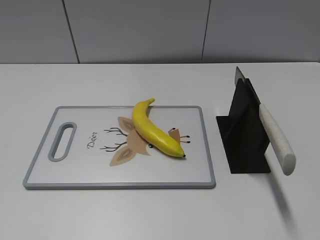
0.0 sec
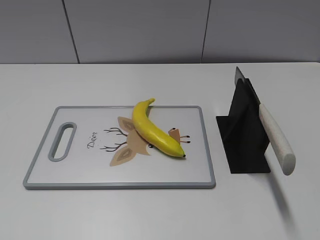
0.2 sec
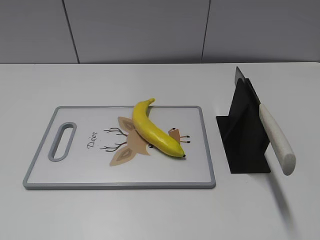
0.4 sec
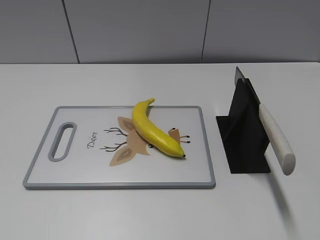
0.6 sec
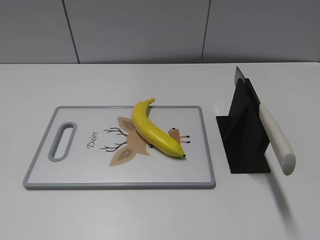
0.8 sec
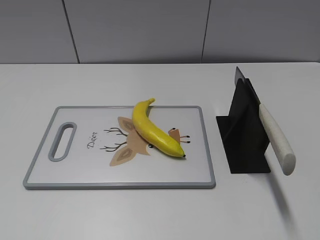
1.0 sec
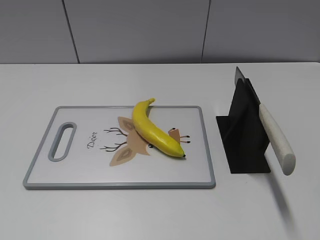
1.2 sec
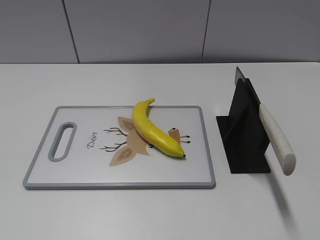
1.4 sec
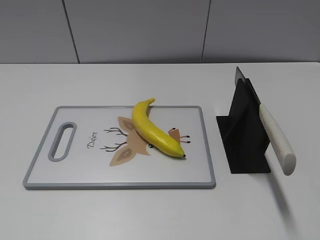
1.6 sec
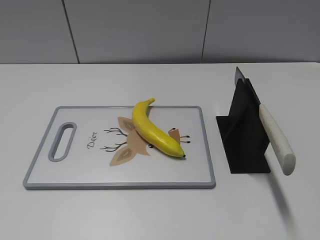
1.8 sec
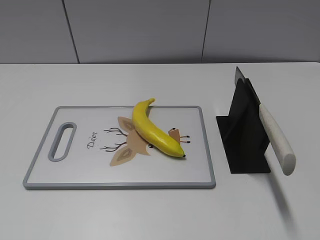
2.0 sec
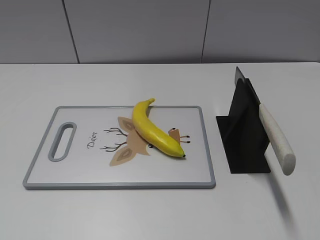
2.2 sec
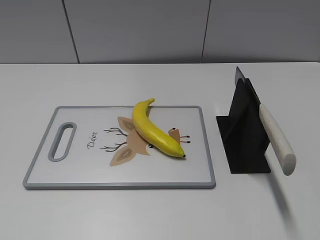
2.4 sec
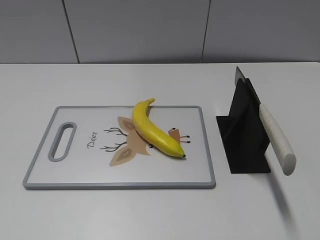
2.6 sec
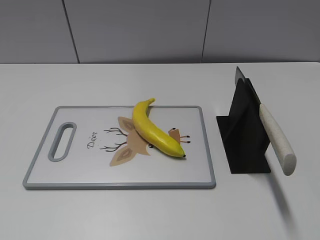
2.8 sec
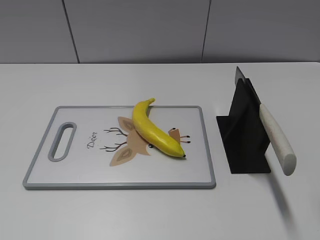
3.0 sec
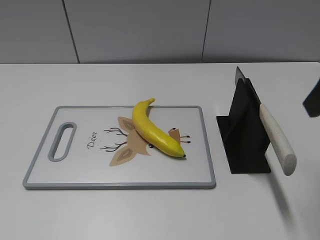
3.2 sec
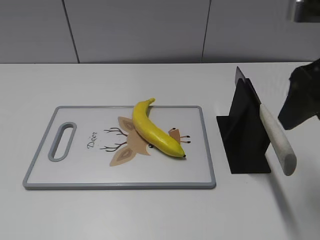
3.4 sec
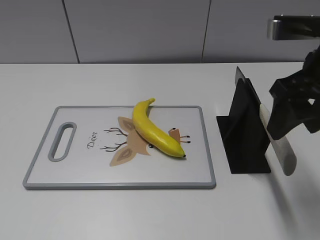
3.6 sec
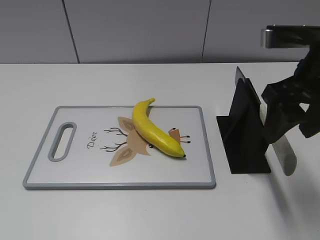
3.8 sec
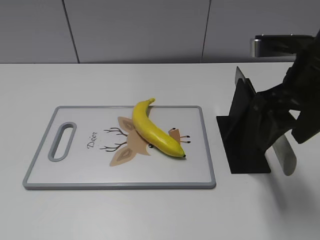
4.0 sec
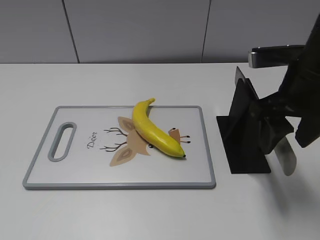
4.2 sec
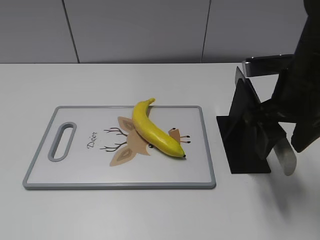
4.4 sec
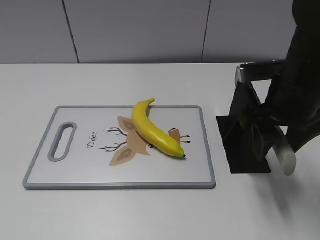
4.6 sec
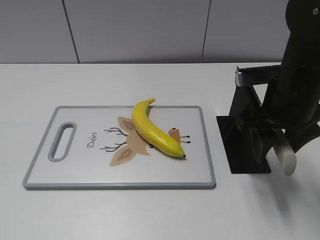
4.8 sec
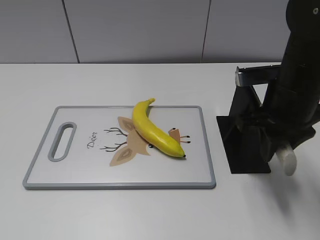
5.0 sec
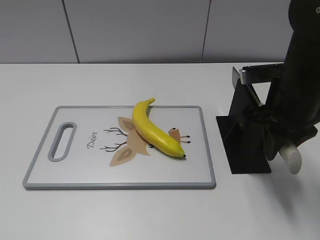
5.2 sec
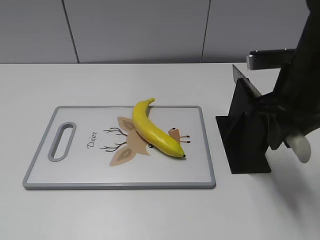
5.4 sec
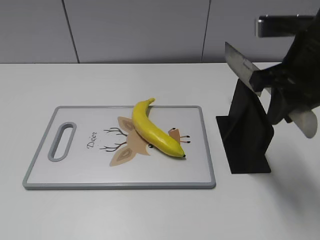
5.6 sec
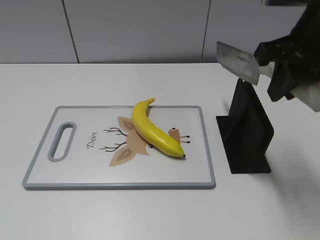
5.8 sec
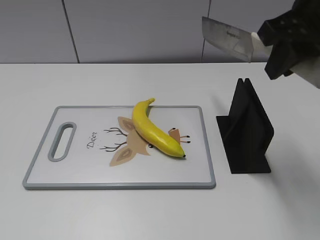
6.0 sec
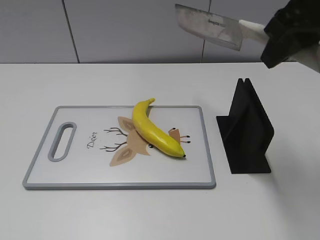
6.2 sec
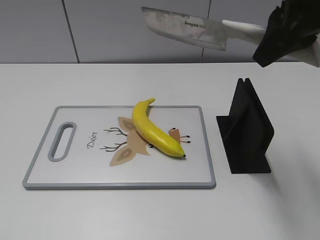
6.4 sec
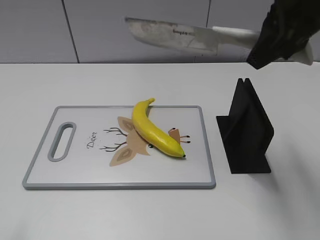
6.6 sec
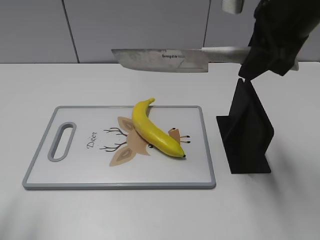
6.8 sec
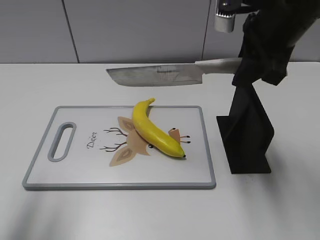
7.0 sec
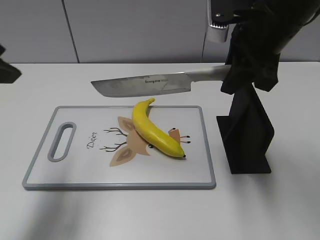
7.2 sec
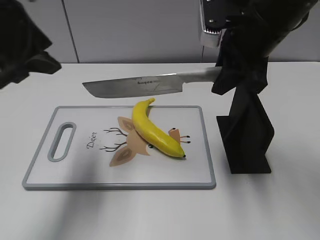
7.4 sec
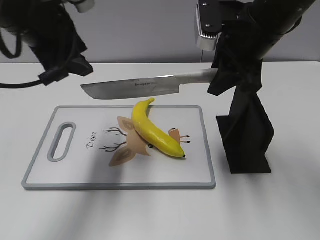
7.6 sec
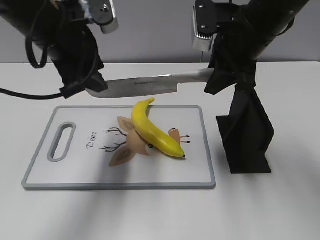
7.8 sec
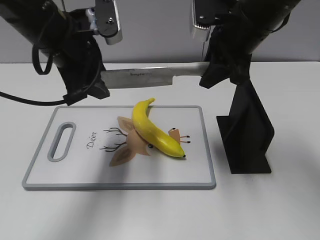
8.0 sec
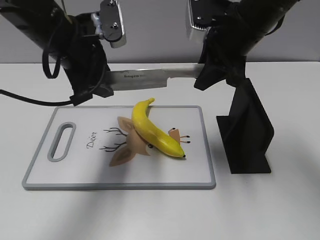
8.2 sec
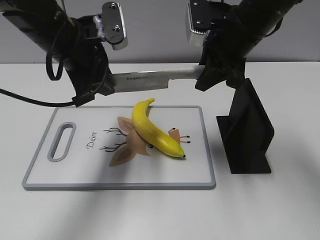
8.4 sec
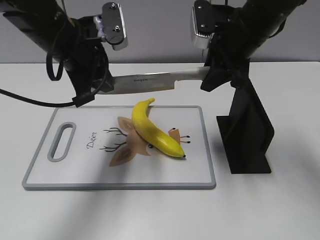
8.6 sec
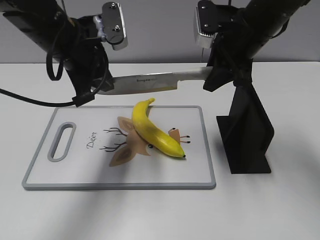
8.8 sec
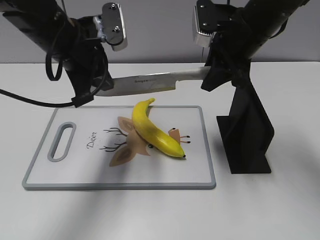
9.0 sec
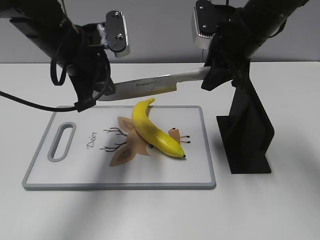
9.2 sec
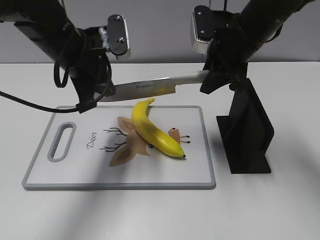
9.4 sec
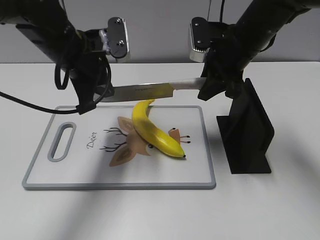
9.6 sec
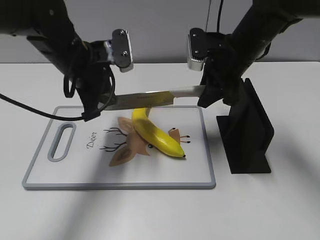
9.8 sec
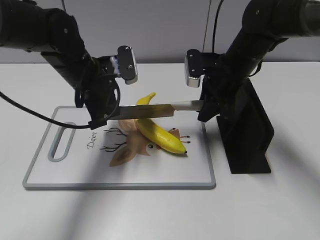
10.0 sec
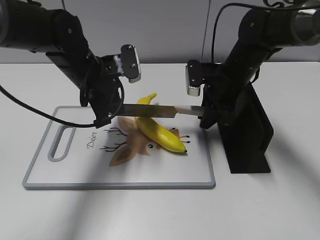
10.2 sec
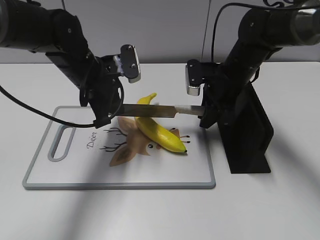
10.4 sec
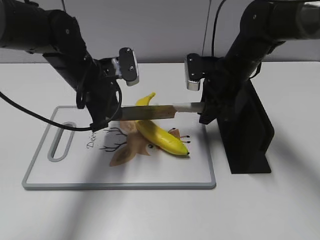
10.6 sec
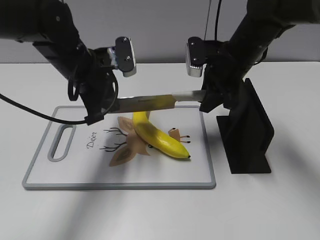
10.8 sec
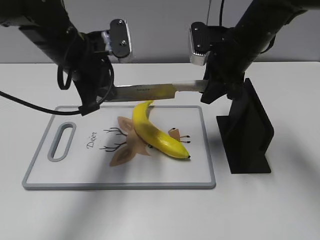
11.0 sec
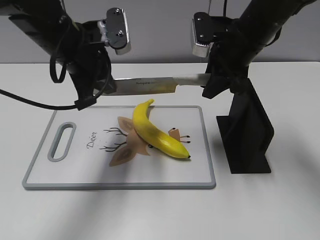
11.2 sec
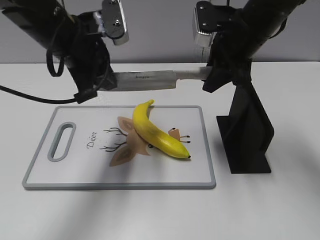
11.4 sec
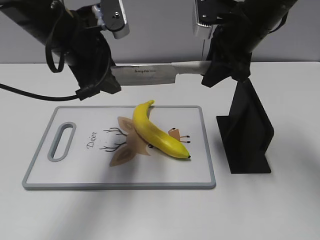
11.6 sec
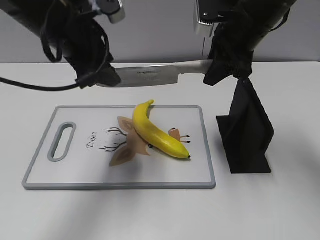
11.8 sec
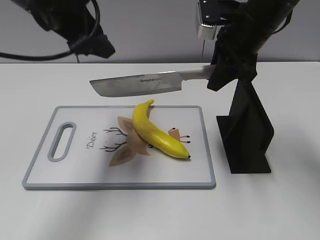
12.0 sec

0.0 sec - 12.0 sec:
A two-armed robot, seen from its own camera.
Task of the whole recording: cut plastic banana.
Step, 0.0 sec - 6.2 sec: Grab the knife handle with your right hand.
Step, 6.6 sec - 11.2 sec: Lift the knife with your right hand.
3.0 sec - 4.4 sec: The right gripper shifts approximately 15 cm downward, forward and to the left.
4.4 sec - 6.0 sec: The right gripper travels upward by about 10 cm, and closes.
6.0 sec - 7.6 sec: The left gripper moves forward and to the right, roughly 35 cm, while the right gripper travels downward and forward by roughly 10 cm.
7.6 sec - 9.0 sec: The left gripper heads downward, covering approximately 5 cm, and closes its fingers.
9.0 sec - 10.4 sec: The two grippers go approximately 10 cm downward.
10.4 sec - 12.0 sec: The grippers both shift upward by roughly 15 cm. The left gripper opens its fingers.

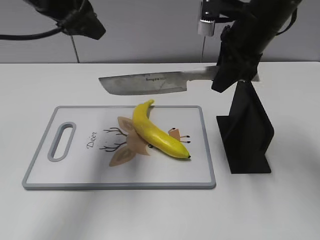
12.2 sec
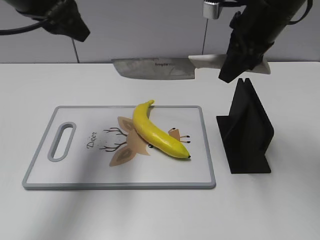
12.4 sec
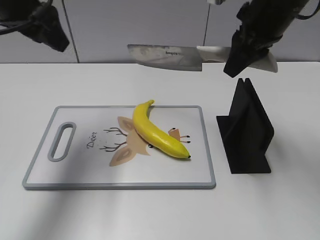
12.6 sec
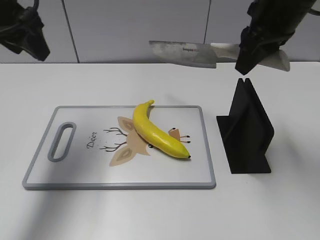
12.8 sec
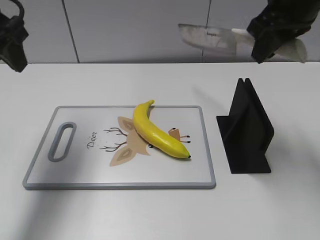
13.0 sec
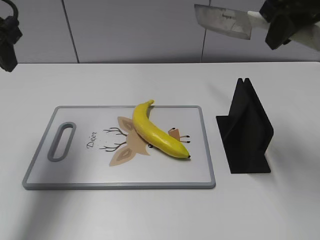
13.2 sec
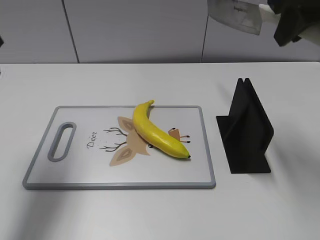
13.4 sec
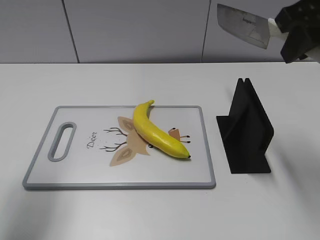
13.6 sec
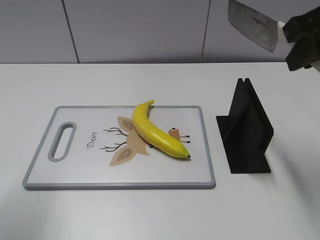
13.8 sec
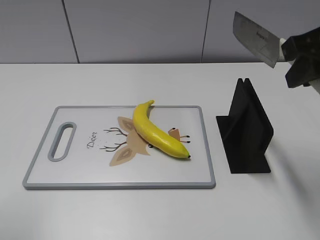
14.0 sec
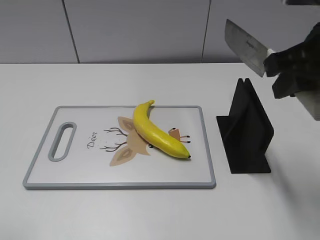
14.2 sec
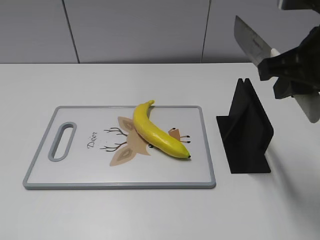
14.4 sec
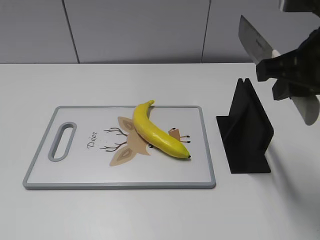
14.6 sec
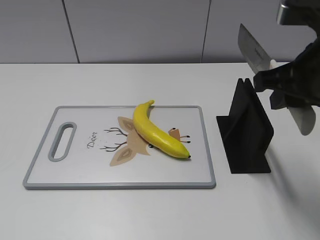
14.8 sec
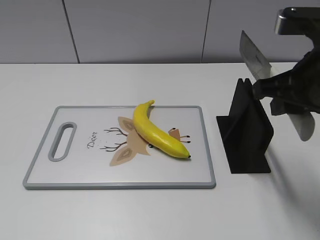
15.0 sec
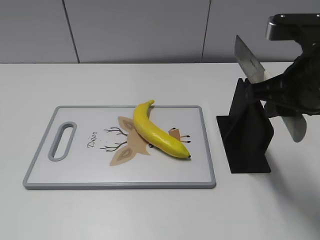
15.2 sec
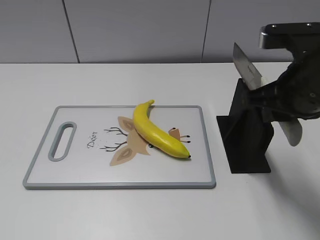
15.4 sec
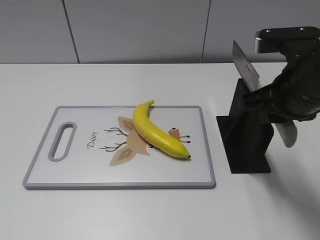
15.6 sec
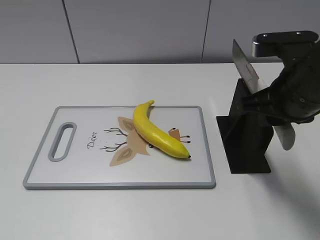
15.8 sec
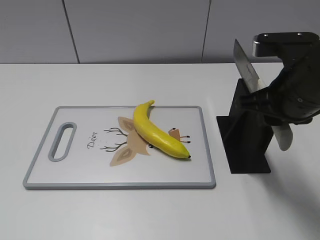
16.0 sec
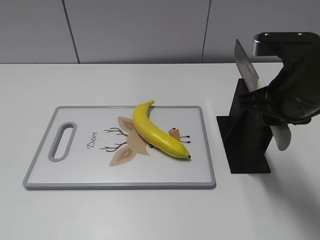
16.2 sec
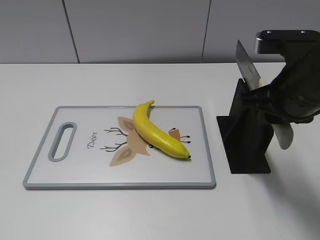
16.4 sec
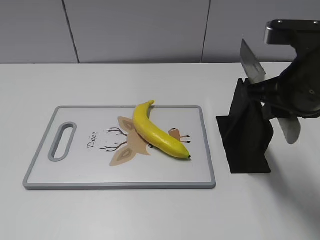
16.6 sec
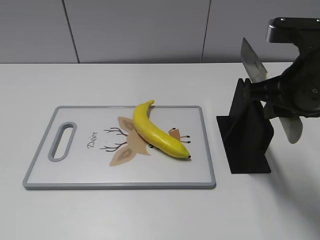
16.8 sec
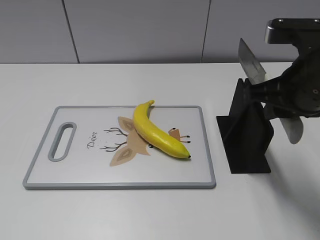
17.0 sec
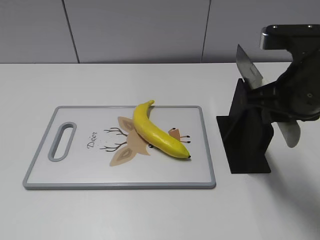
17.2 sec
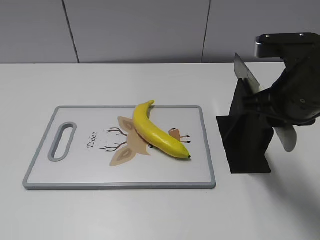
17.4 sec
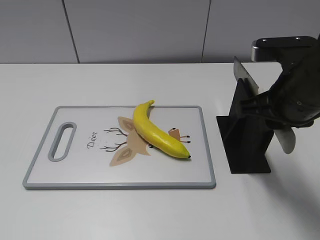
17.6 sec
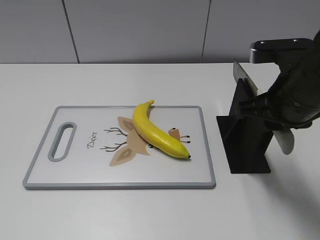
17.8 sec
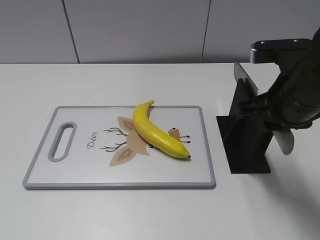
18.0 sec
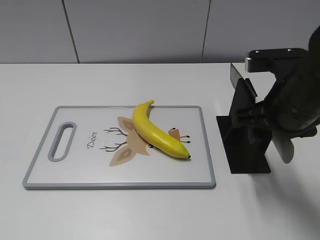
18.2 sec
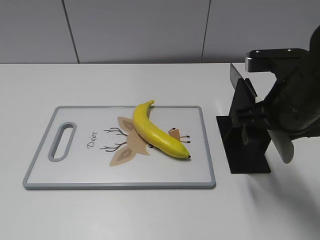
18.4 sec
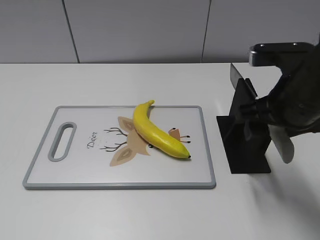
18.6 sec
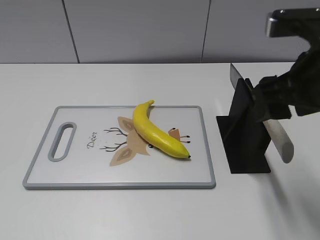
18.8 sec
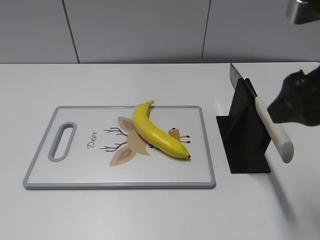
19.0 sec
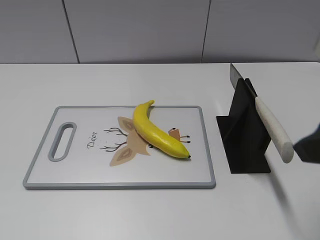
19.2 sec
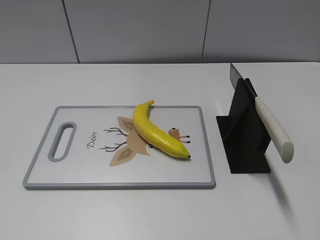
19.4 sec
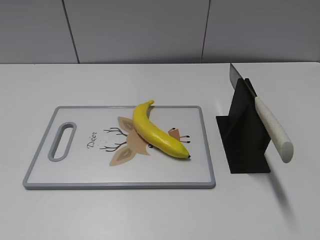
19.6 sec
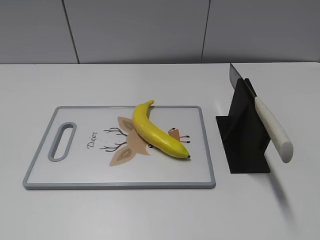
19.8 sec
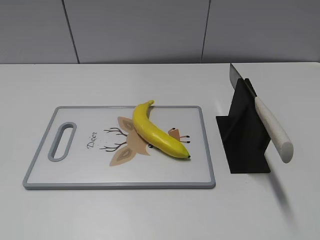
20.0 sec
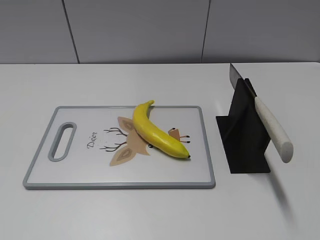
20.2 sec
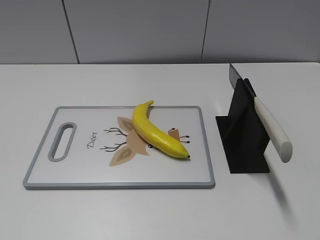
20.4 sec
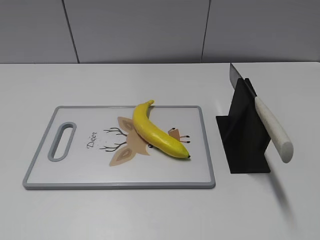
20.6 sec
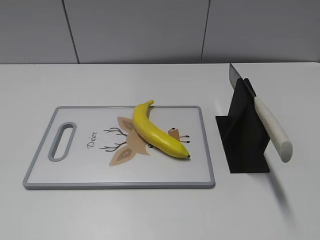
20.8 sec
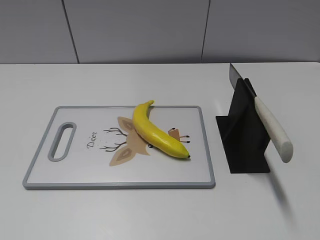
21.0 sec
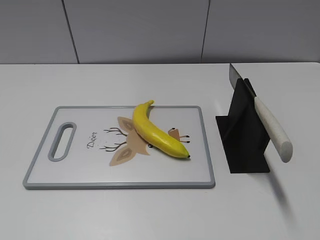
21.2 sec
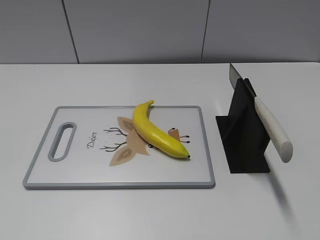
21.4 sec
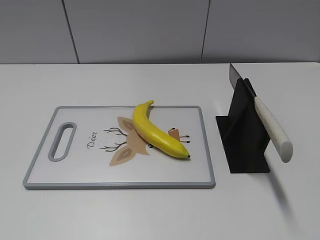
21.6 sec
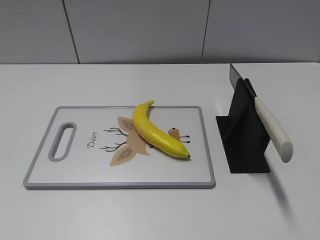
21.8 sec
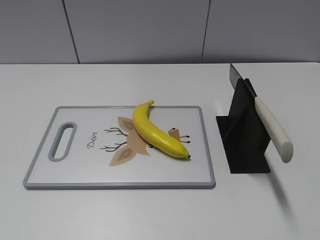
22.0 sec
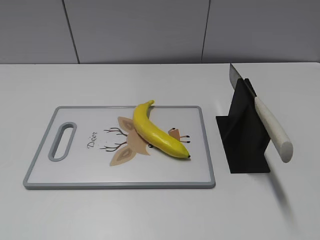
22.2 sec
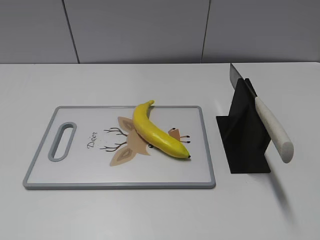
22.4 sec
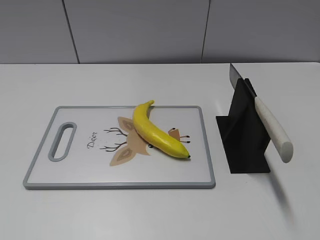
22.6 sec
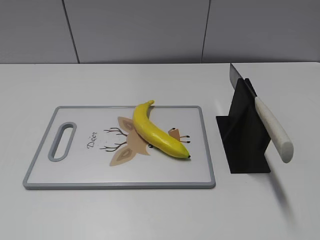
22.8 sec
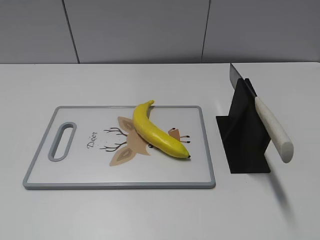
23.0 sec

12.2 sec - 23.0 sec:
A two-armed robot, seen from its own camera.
Task of the whole recording: cut plastic banana.
Step, 12.2 sec - 13.0 sec: Cut the banana with your right hand.
Step, 13.2 sec - 14.6 sec: Lift the knife with your right hand.
Step, 14.8 sec - 22.6 sec: Place the knife on the storage rack with your right hand.
12.2 sec - 13.8 sec: The right gripper heads backward, upward and to the right, covering some 15 cm. Meanwhile the left gripper is displaced backward and to the left by about 20 cm.
13.8 sec - 15.2 sec: The left gripper travels backward by about 20 cm. The right gripper goes approximately 10 cm downward.
15.2 sec - 16.8 sec: The grippers make only small movements.
16.8 sec - 18.4 sec: The right gripper opens up.
18.4 sec - 20.0 sec: The right gripper heads backward and to the right, covering some 25 cm.
